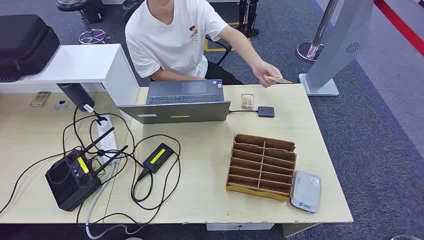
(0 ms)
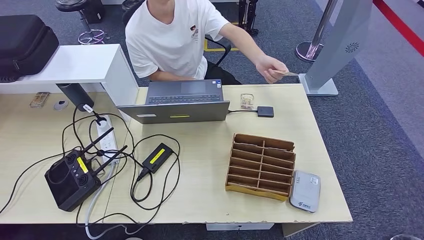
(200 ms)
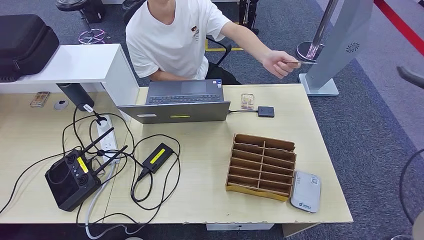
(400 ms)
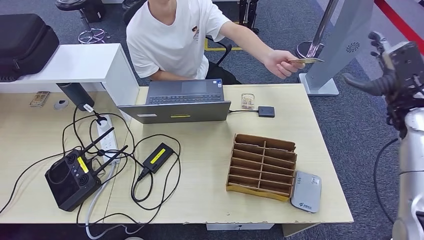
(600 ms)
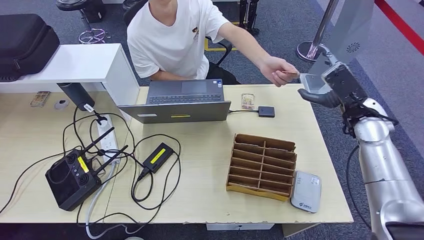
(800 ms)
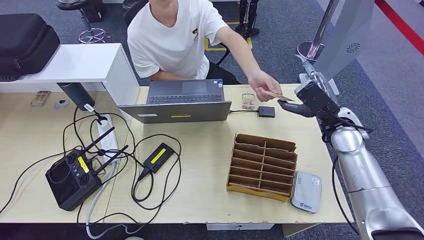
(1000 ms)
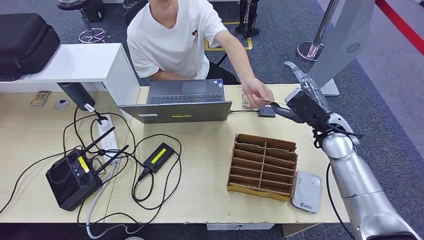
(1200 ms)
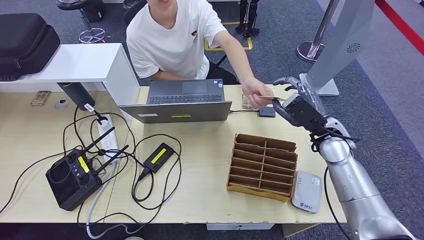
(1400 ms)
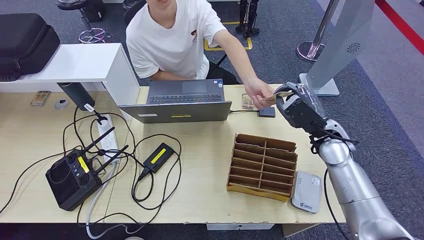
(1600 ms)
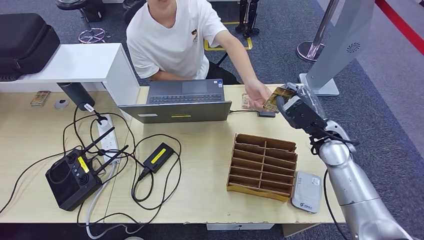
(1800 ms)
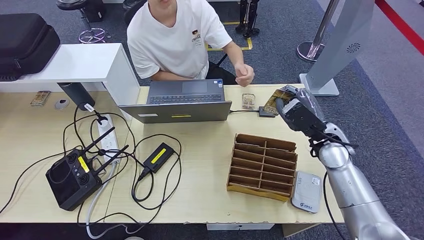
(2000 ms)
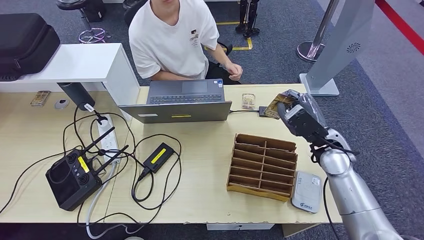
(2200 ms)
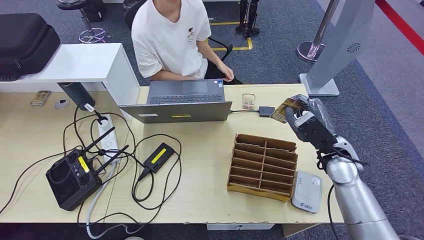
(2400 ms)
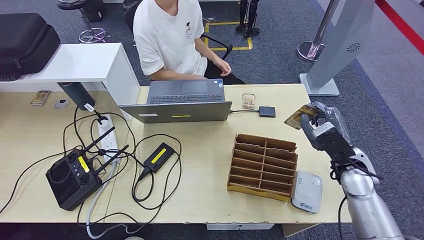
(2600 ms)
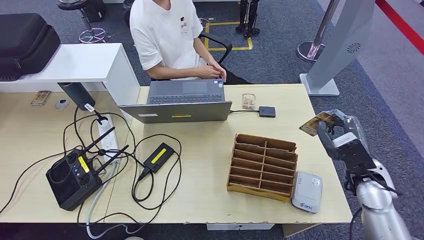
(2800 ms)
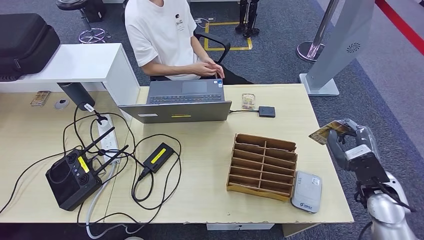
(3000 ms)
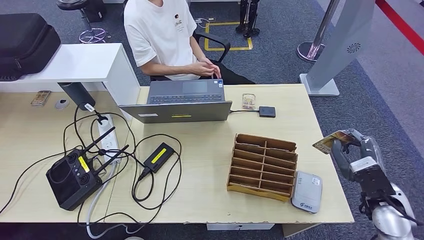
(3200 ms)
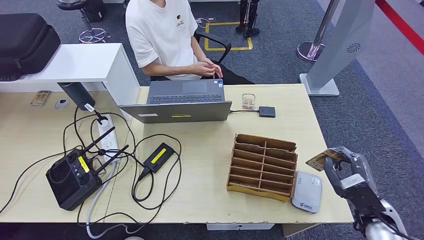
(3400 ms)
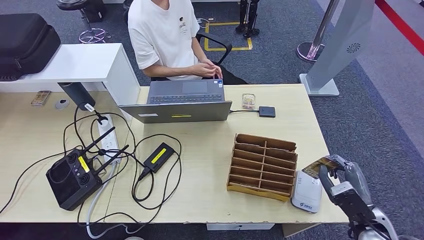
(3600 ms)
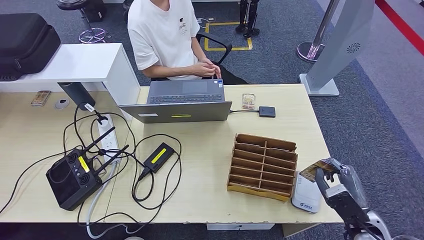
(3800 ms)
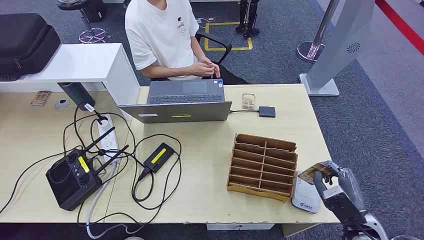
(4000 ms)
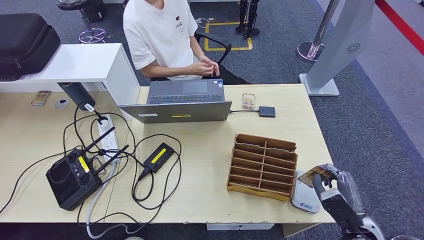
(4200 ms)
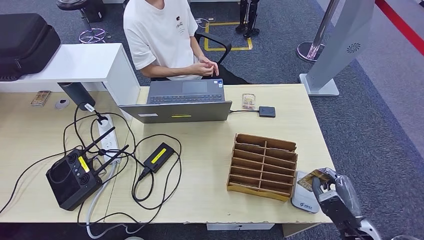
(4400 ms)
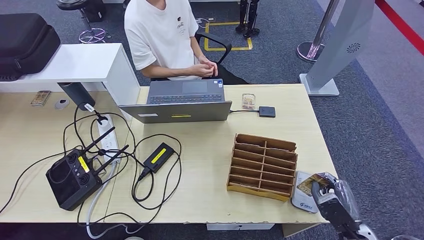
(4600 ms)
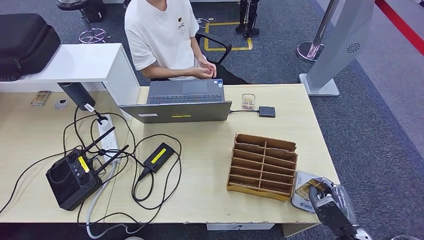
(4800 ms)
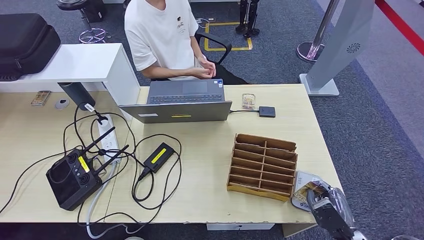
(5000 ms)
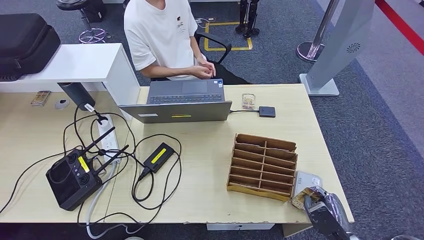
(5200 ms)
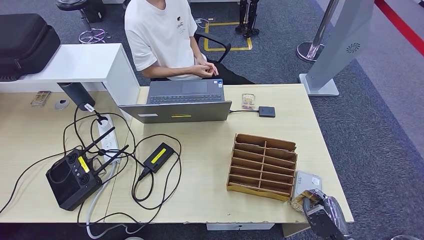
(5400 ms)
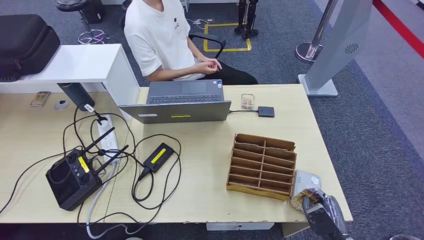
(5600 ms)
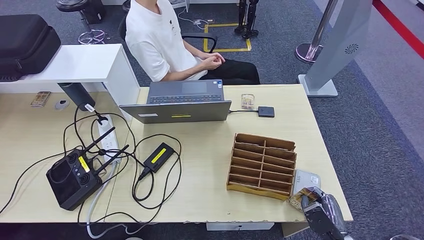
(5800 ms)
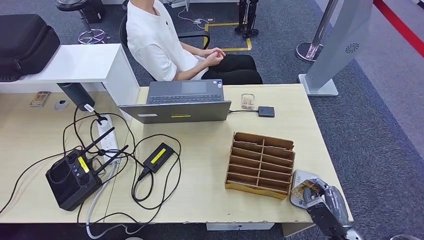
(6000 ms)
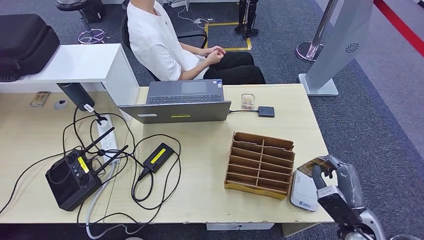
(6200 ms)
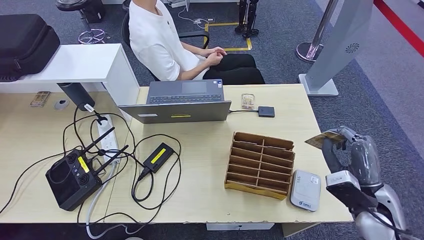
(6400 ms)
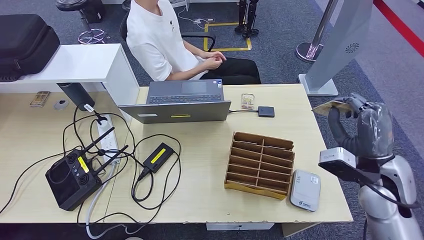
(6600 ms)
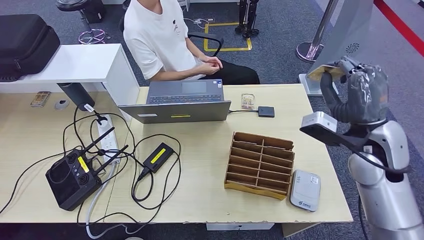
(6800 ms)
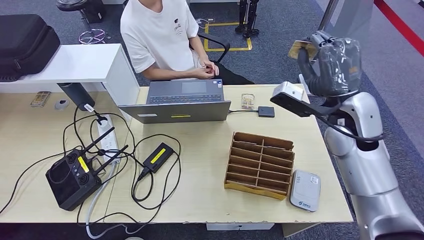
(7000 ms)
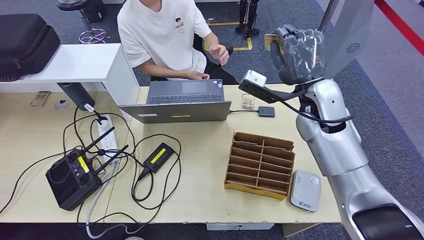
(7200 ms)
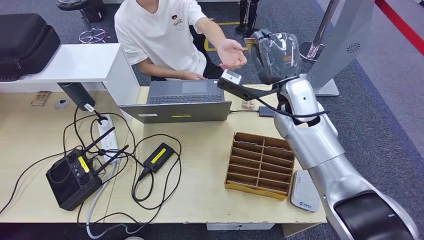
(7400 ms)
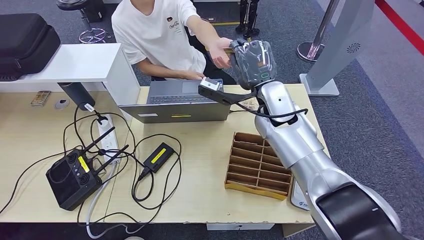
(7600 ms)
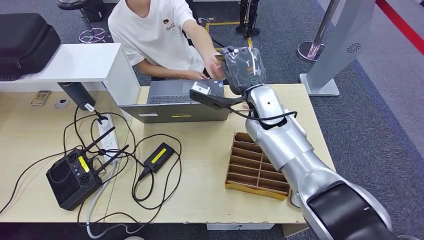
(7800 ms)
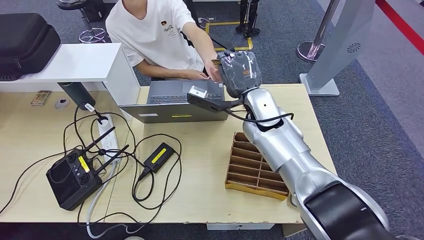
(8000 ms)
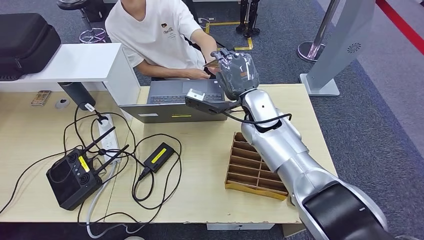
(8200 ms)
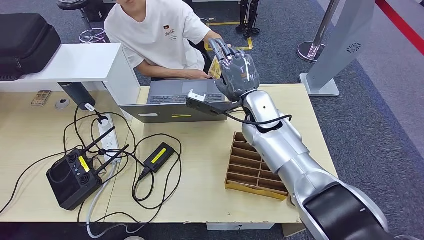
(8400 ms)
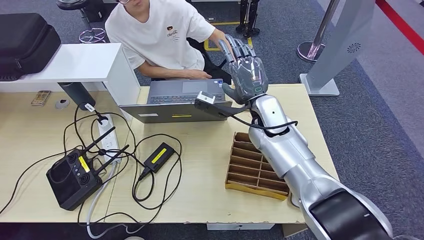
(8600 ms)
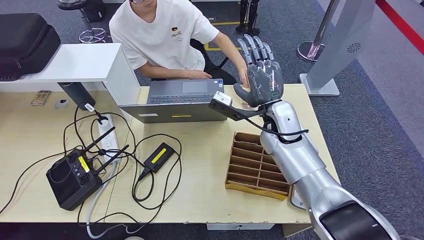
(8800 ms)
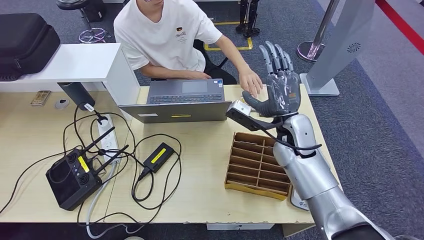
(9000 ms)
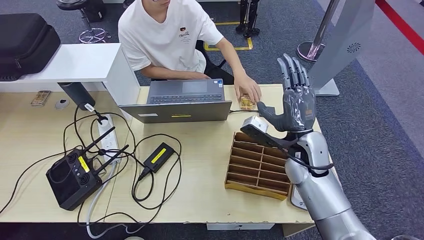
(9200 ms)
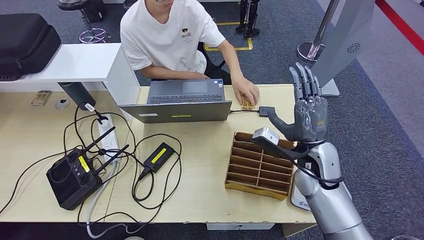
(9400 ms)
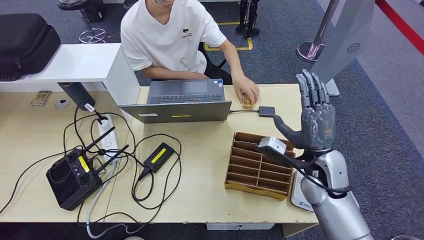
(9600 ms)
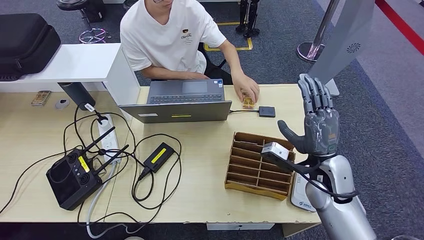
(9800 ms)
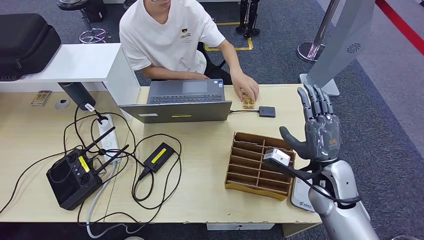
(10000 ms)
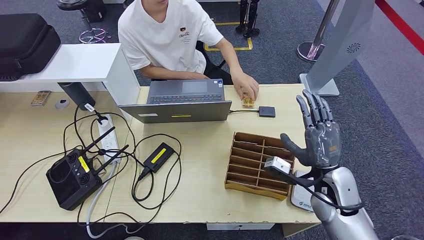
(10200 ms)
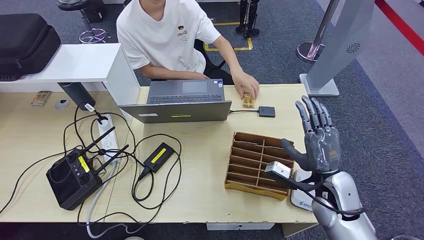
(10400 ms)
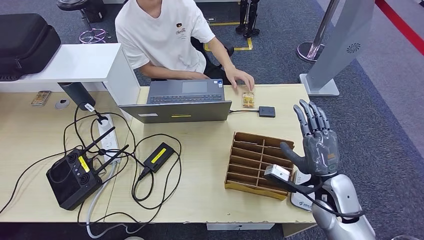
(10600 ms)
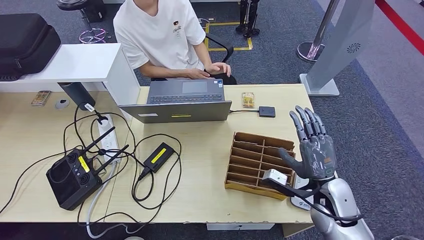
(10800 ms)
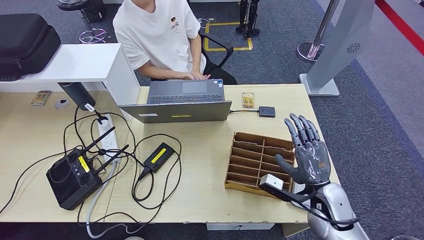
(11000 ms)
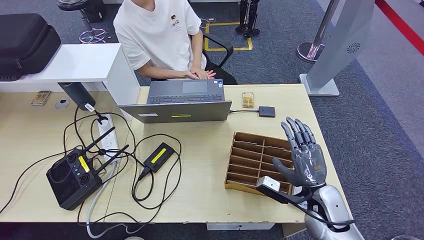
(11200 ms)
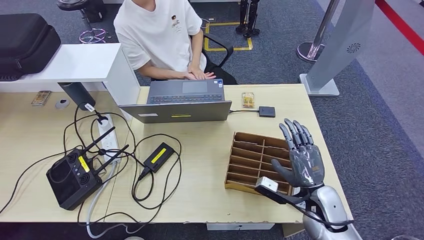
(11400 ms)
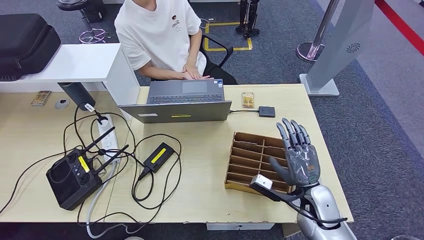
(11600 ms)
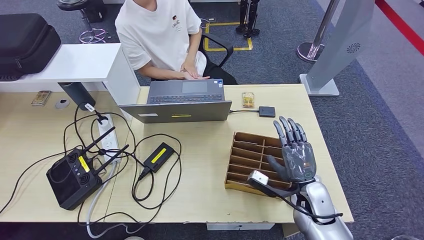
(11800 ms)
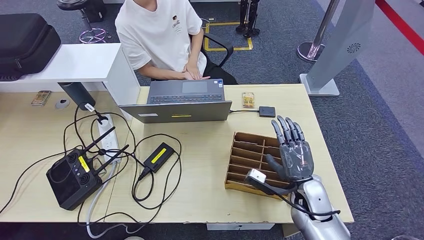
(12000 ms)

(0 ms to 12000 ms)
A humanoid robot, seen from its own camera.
Step, 0 ms - 2600 ms: Take the ID card from the person's hand.
Step, 2800 ms - 5800 ms: Place the ID card on the card reader.
1600 ms - 3000 ms: The right hand moves backward and to the right, about 15 cm.
3000 ms - 4400 ms: The right hand heads downward and backward, covering approximately 15 cm.
6000 ms - 7600 ms: The right hand shifts roughly 40 cm forward, upward and to the left.
7600 ms - 9000 ms: The right hand is displaced downward by some 5 cm.
9000 ms - 10400 ms: The right hand moves backward, to the right and downward, about 15 cm.
10400 ms - 12000 ms: The right hand goes about 5 cm downward.

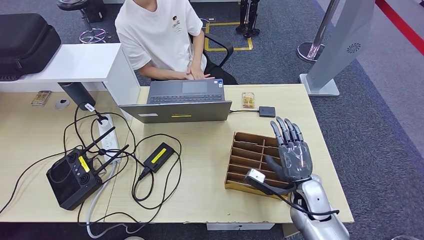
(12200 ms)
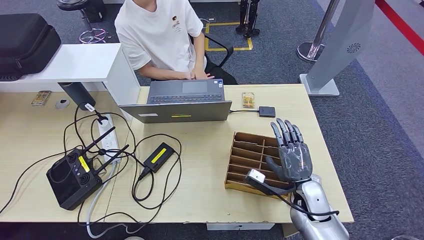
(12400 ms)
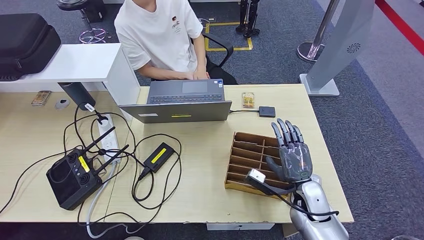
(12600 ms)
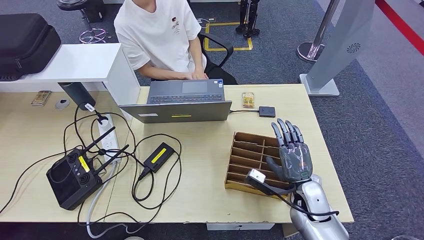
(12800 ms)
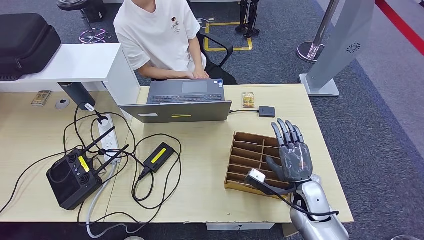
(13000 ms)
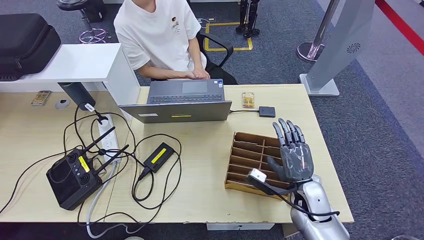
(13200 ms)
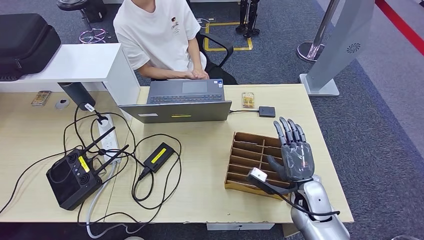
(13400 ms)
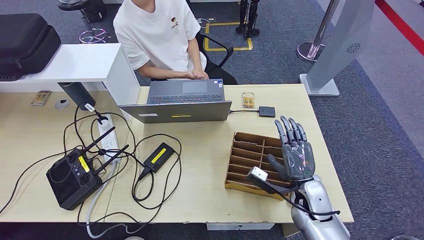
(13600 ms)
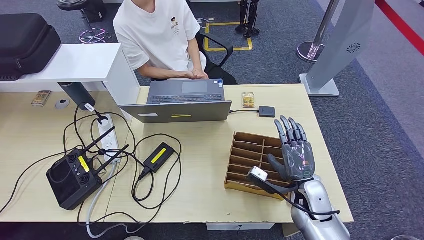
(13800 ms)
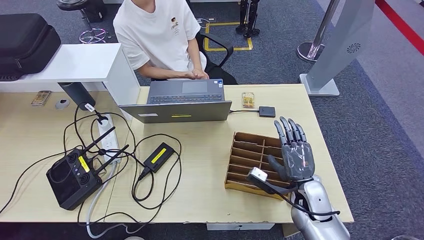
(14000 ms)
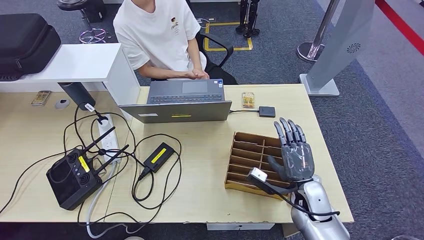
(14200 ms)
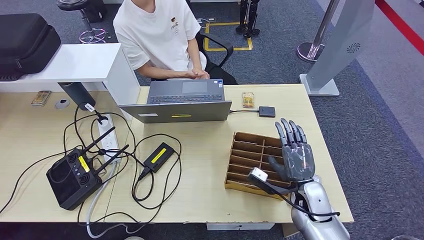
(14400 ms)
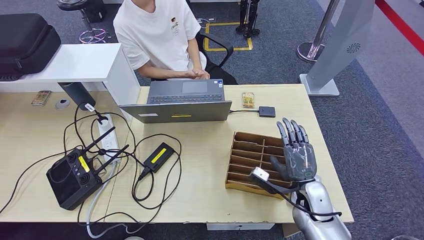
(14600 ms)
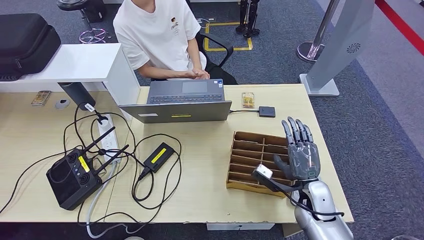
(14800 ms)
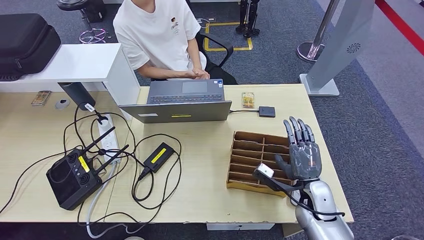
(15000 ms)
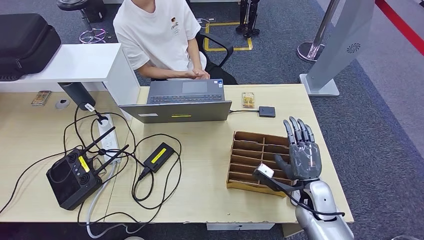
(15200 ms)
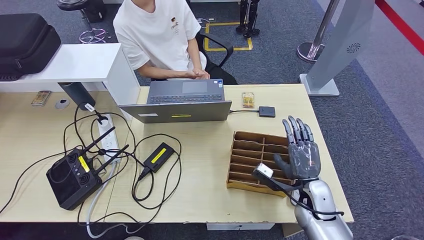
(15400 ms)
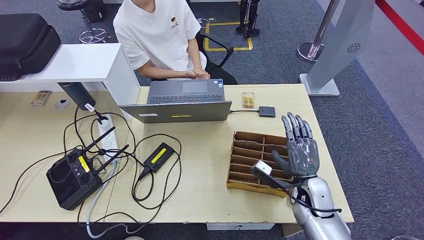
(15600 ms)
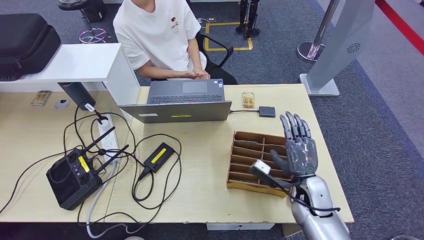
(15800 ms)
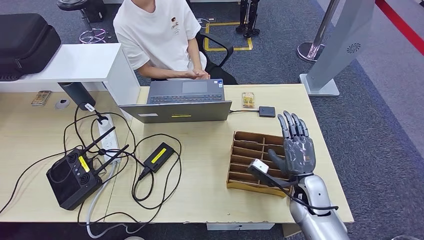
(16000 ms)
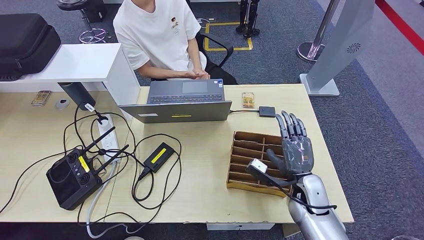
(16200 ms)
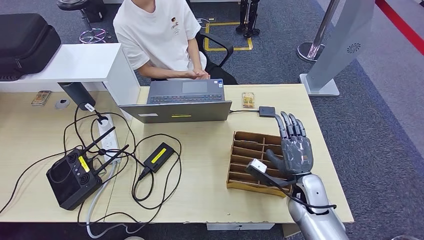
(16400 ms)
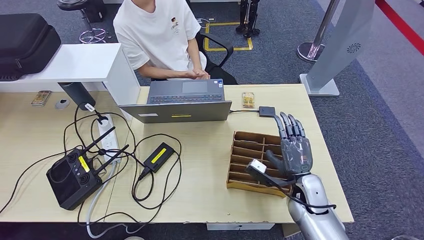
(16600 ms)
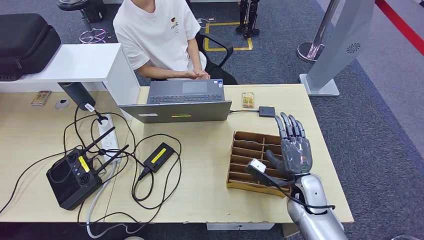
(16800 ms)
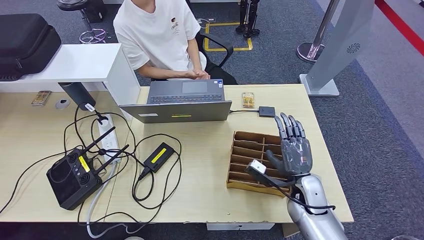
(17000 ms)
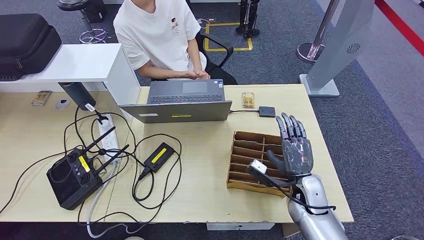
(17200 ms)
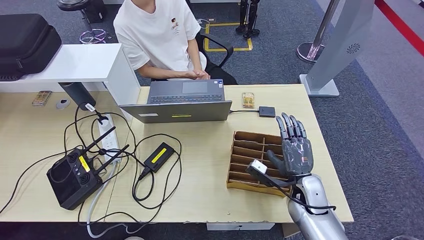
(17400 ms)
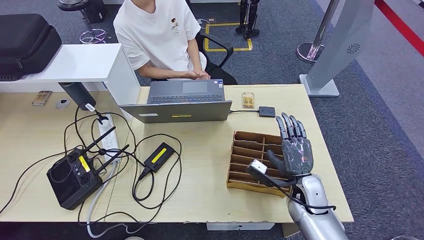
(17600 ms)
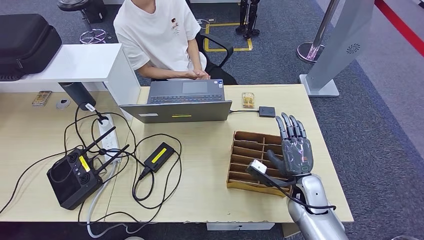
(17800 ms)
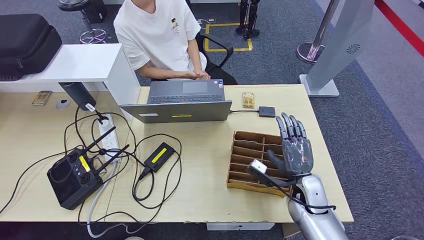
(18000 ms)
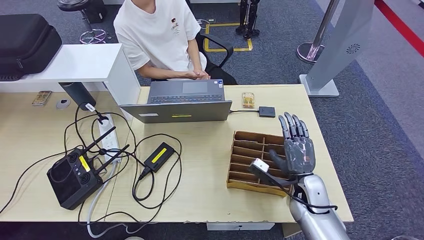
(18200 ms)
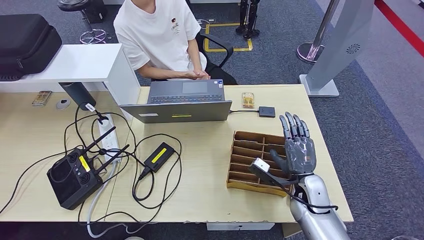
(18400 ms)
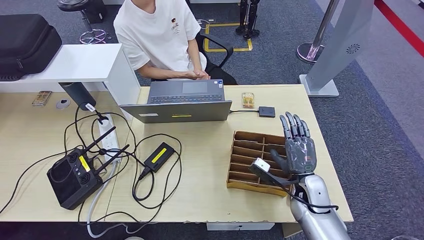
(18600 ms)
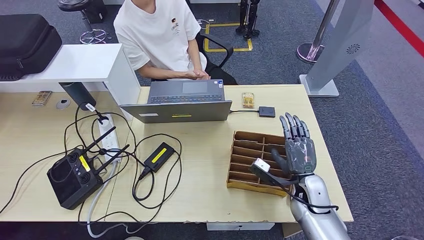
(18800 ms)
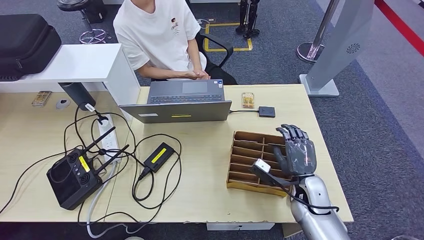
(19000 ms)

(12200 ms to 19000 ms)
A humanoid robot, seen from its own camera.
12200 ms - 13600 ms: Both hands stay put.
13600 ms - 16200 ms: The hands stay close to where they were, moving slightly.
16200 ms - 17600 ms: Both hands stay about where they are.
17600 ms - 19000 ms: Neither hand changes place.
